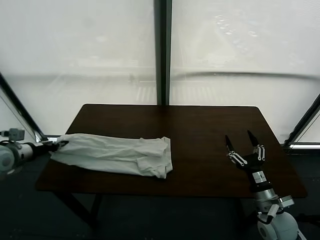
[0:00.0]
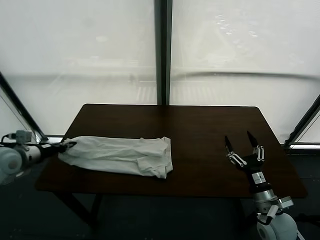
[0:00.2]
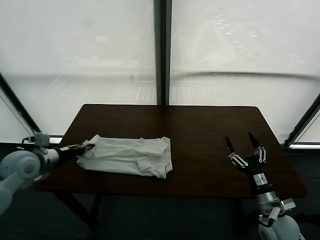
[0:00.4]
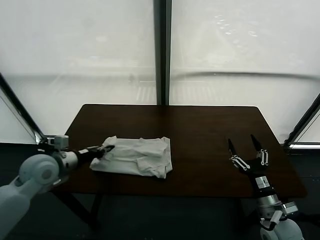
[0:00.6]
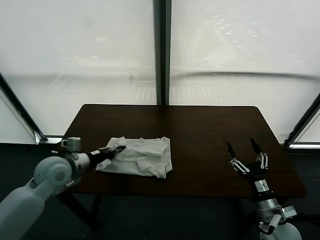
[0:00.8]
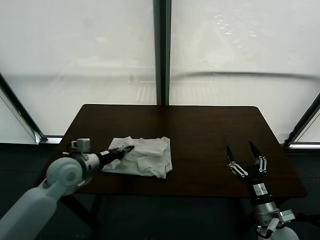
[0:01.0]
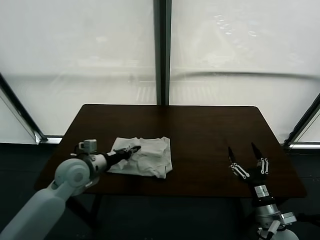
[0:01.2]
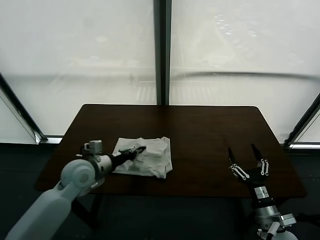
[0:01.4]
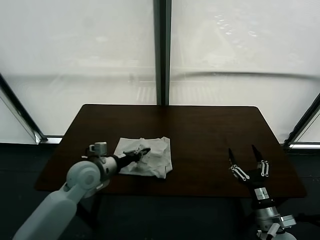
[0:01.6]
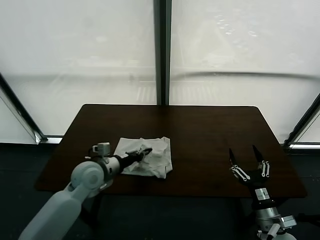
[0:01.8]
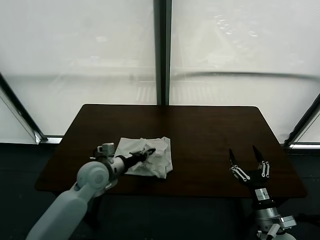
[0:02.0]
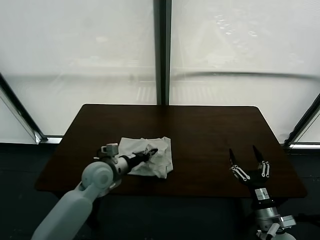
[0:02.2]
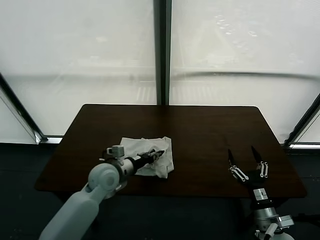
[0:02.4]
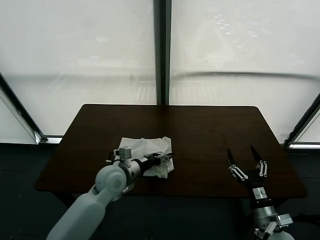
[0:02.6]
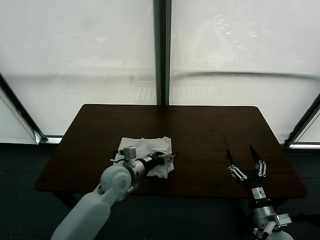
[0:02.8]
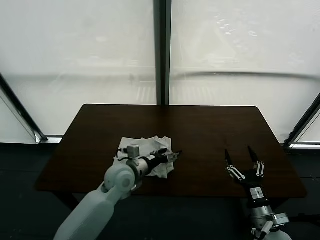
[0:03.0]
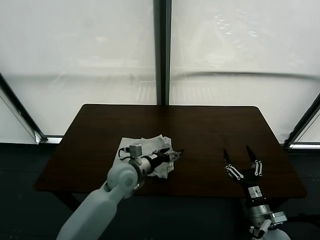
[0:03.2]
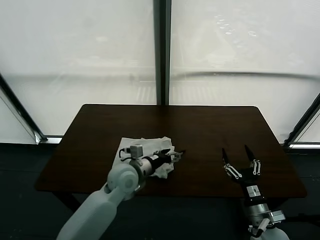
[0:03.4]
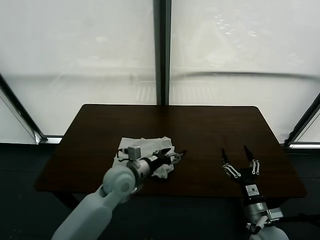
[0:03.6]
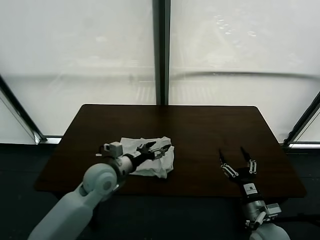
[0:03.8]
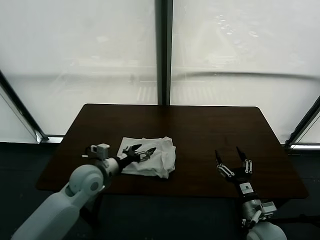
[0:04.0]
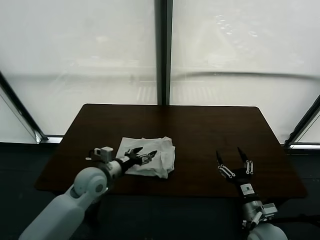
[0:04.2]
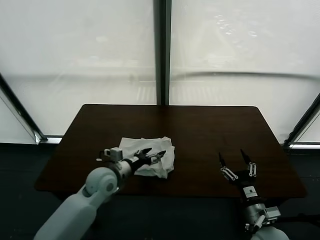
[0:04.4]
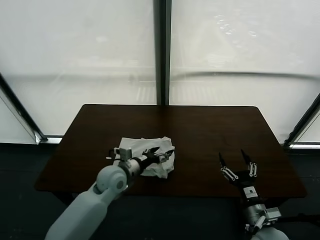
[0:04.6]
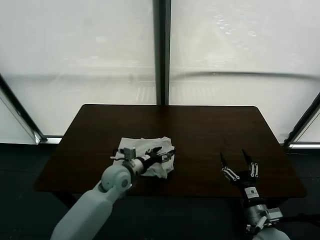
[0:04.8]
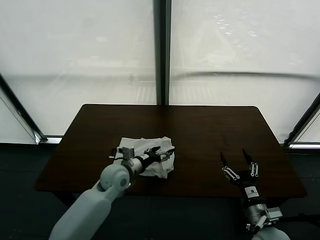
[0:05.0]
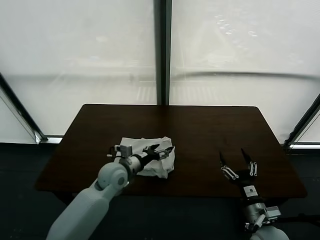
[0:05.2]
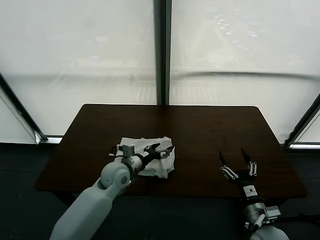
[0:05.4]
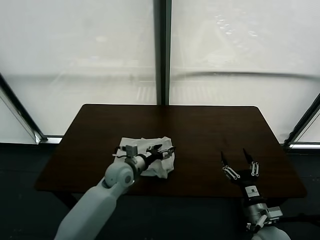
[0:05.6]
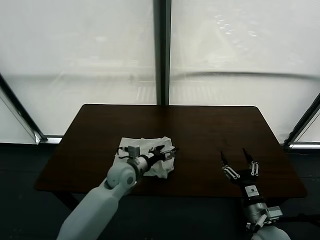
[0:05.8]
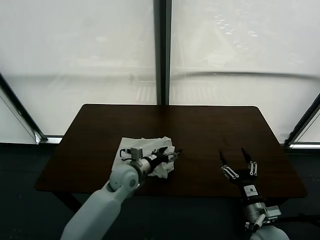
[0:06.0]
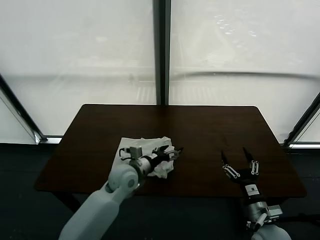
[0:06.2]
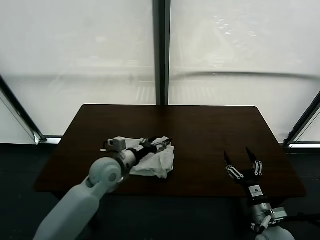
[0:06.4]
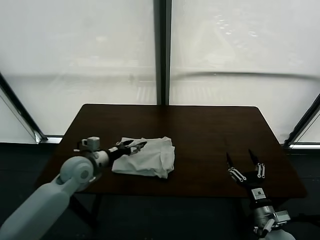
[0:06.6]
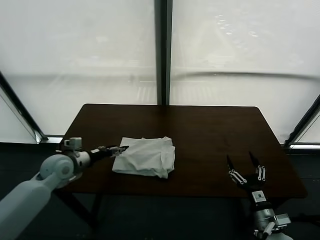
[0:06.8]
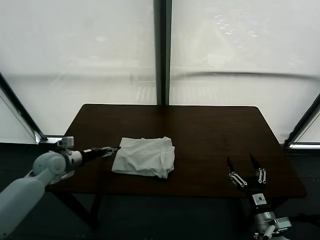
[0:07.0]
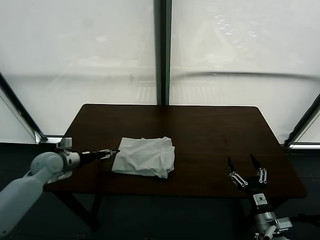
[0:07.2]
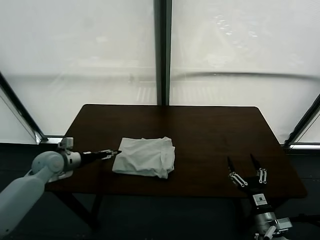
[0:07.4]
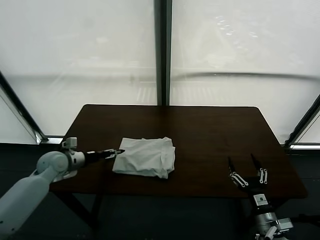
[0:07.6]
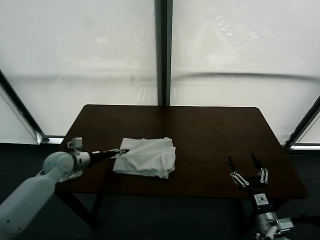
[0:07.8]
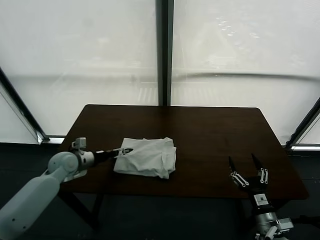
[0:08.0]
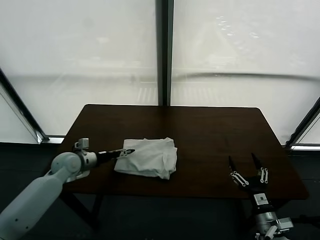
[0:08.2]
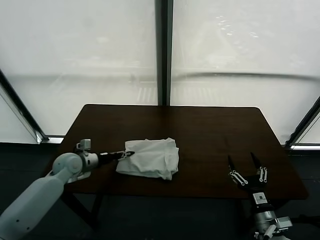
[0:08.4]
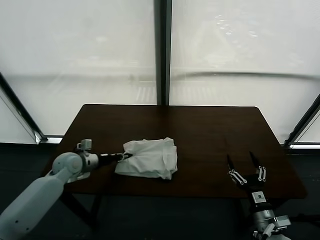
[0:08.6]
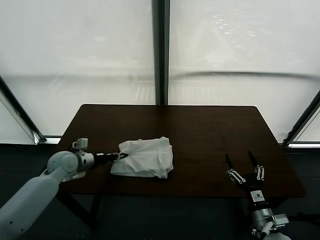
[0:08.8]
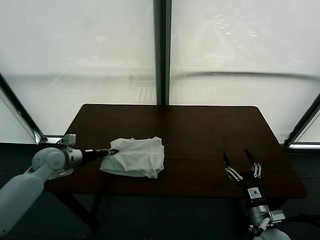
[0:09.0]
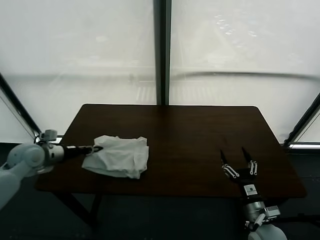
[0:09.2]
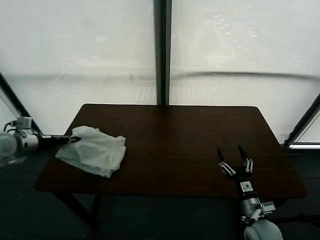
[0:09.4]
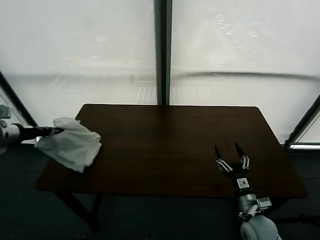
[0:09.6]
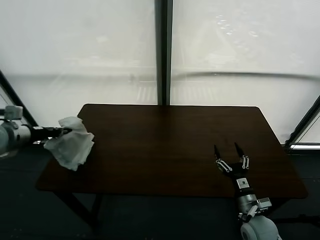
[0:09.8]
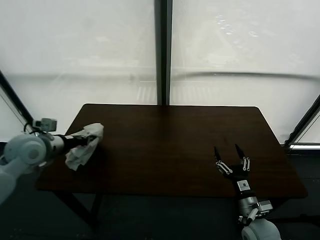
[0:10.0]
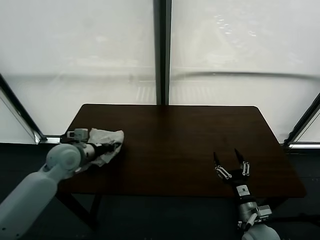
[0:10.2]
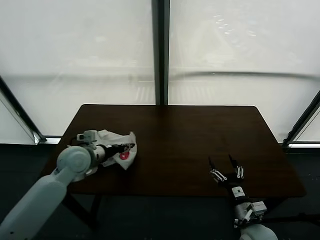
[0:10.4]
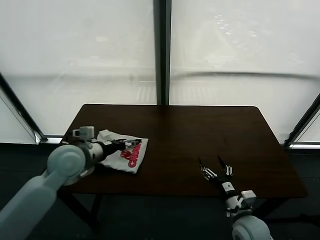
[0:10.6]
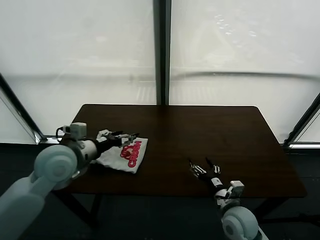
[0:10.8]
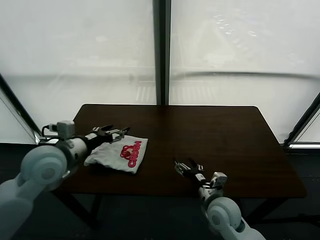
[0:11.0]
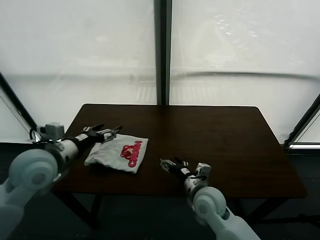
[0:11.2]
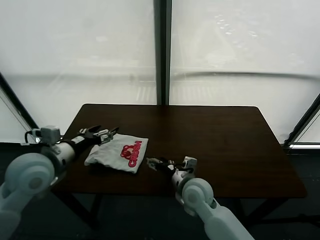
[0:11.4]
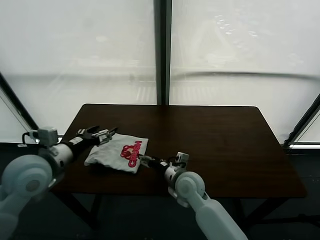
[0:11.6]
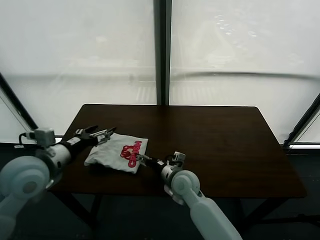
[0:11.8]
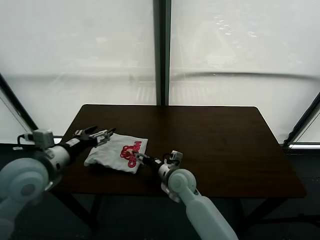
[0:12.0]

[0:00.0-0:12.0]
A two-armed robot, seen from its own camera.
Task of the whole recording: fold and organize the clothes.
Step, 0:00.0 to 0:03.4: use the left gripper to drag the left edge of the fabric to the left and folds it over the right edge.
Step, 0:03.6 to 0:10.8: Flip the folded clothes over with left gripper.
0:00.0 to 0:01.6: The left gripper travels to the right by roughly 25 cm.
0:01.6 to 0:03.0: The left gripper heads to the right, covering approximately 10 cm, and opens.
0:04.4 to 0:06.0: The left gripper goes some 5 cm to the right.
0:06.0 to 0:07.6: The left gripper moves to the left, roughly 25 cm.
0:07.6 to 0:09.0: The left gripper closes its fingers.
0:09.0 to 0:10.4: The left gripper moves to the right, roughly 10 cm.
0:10.4 to 0:12.0: The left gripper goes roughly 15 cm backward and upward, and opens its fingers, while the right gripper travels to the left and forward by roughly 25 cm.

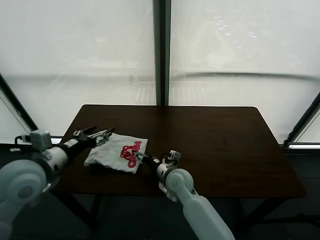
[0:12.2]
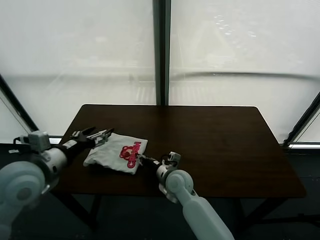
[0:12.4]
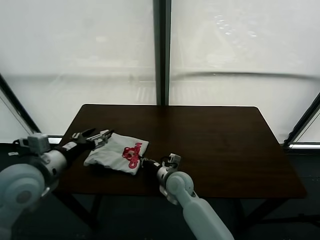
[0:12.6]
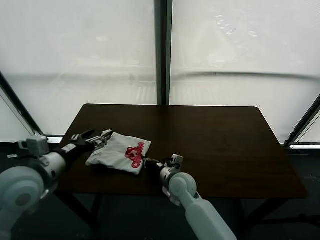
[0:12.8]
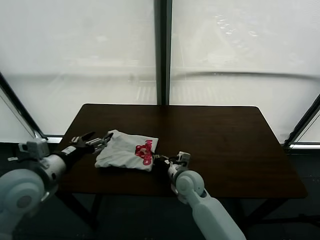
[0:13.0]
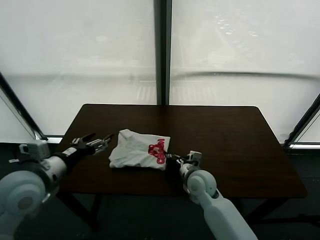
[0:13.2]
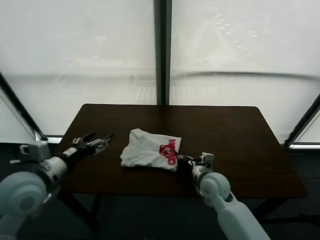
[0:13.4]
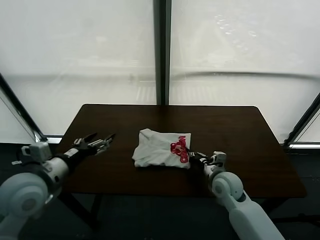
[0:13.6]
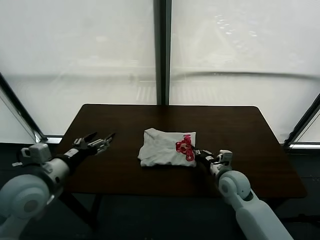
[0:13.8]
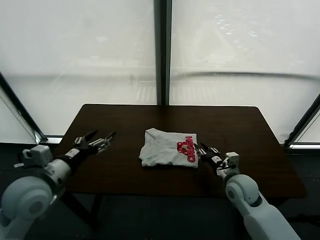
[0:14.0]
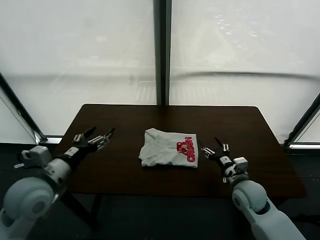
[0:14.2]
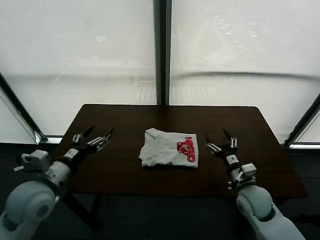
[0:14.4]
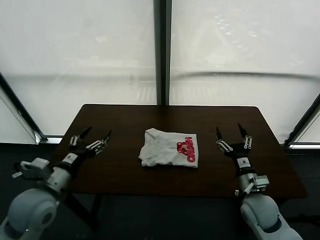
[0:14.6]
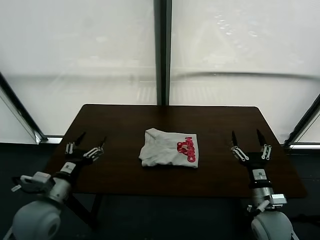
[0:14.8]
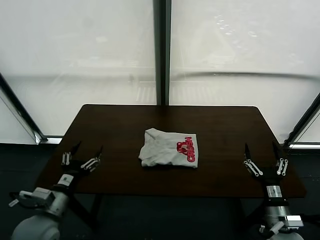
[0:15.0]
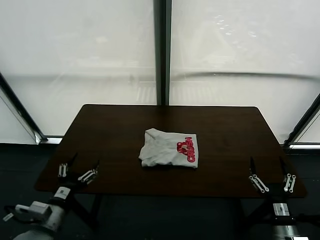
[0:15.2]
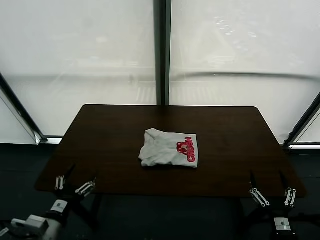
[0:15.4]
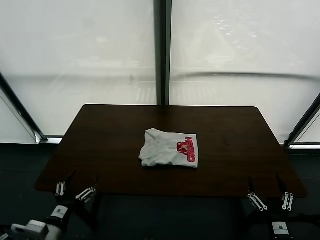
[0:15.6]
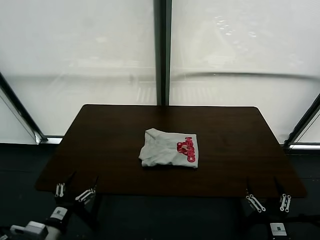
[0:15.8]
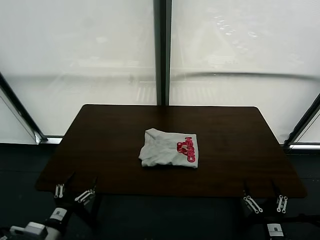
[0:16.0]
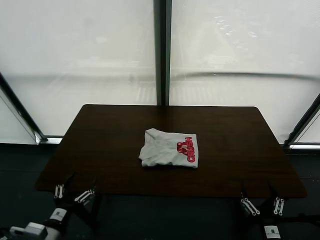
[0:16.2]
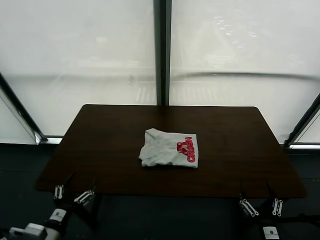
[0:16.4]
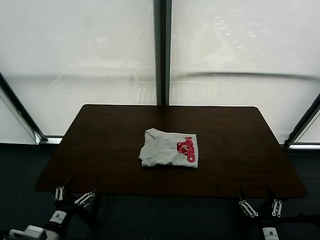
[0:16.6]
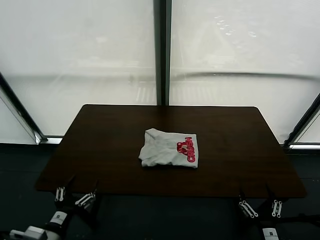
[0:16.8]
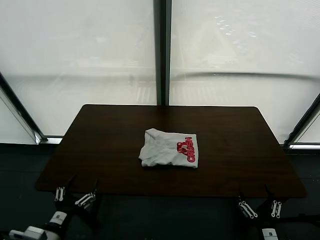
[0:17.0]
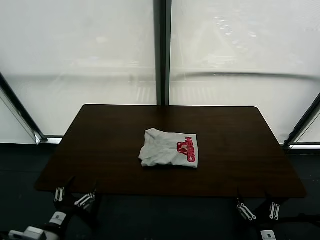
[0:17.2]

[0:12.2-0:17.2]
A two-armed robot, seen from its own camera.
Task of the whole recording: fold and organize the clothes.
Step, 0:12.2 to 0:14.0: Drag the clothes to the center of the table.
0:12.2 to 0:13.8: The right gripper travels to the right by about 20 cm, and closes.
0:13.8 to 0:15.6: The right gripper moves backward, roughly 25 cm, and opens its fingers. The left gripper travels backward and downward by some 20 cm.
0:15.6 to 0:17.2: There are only small adjustments of the grippers.
